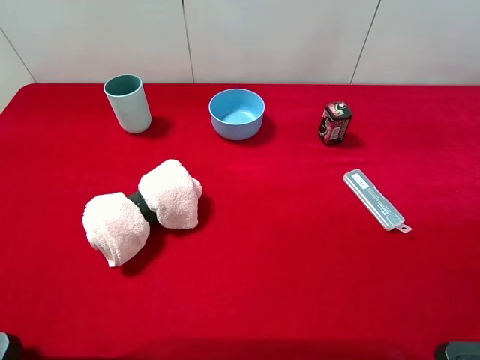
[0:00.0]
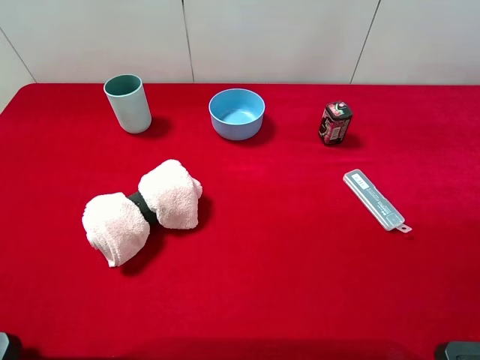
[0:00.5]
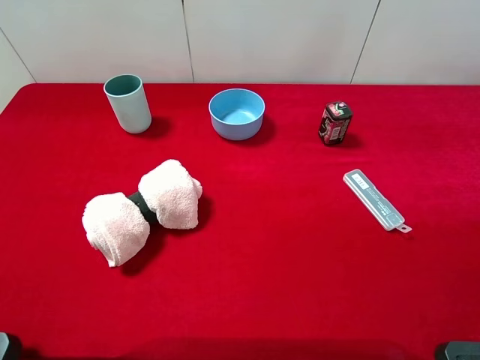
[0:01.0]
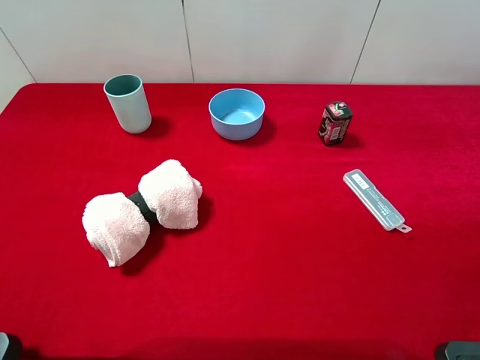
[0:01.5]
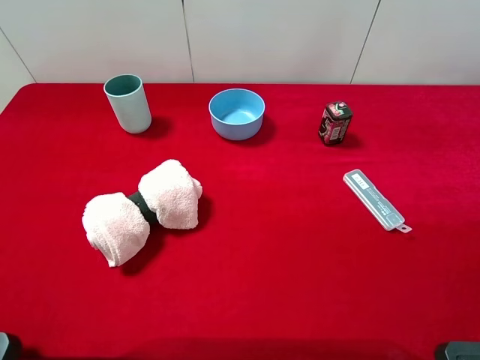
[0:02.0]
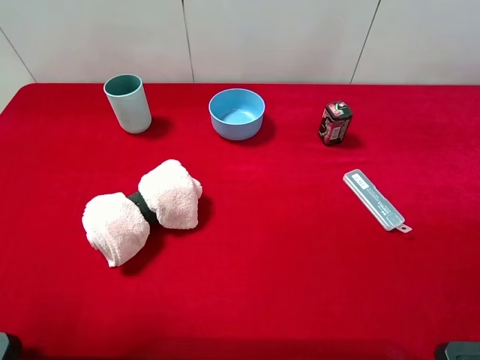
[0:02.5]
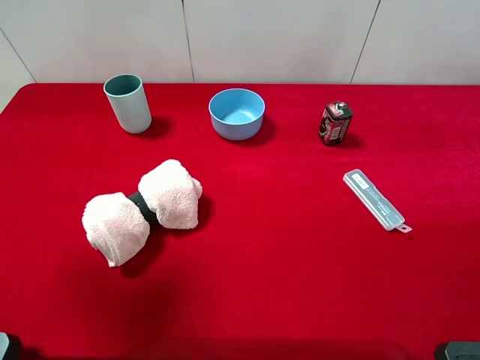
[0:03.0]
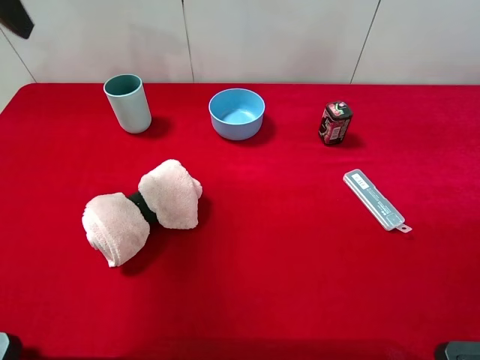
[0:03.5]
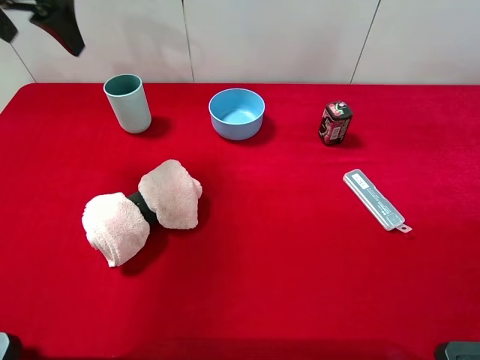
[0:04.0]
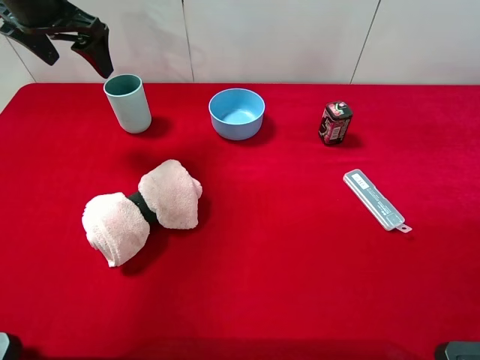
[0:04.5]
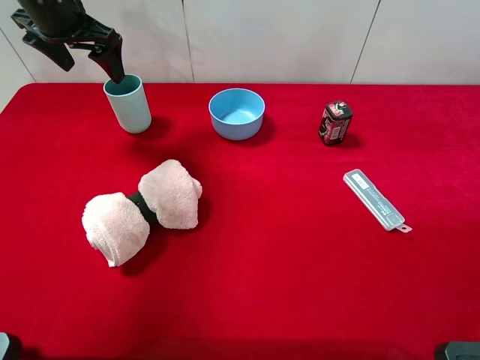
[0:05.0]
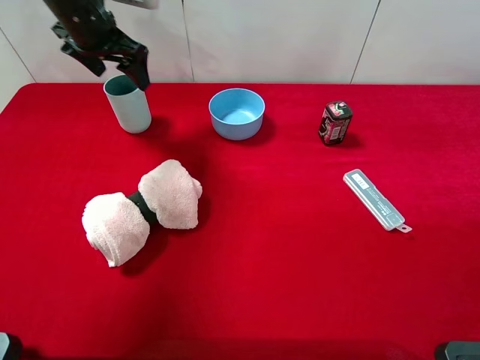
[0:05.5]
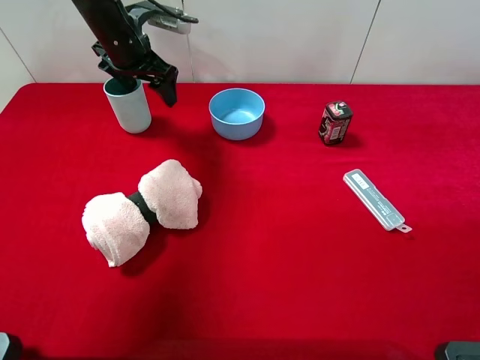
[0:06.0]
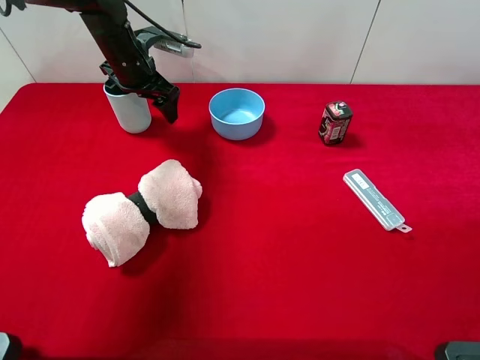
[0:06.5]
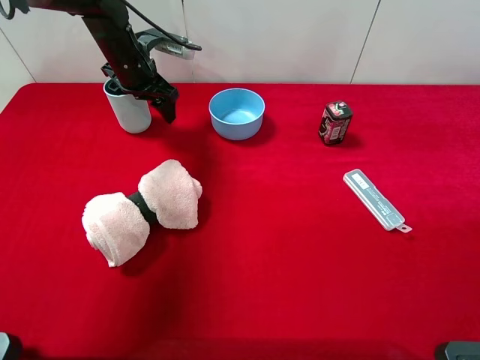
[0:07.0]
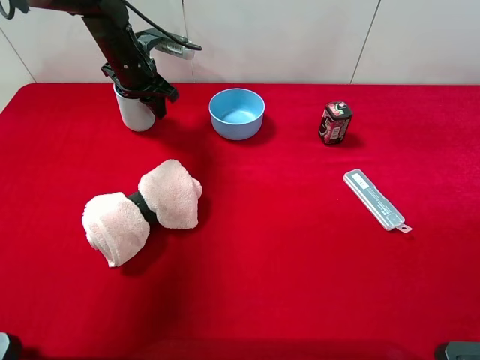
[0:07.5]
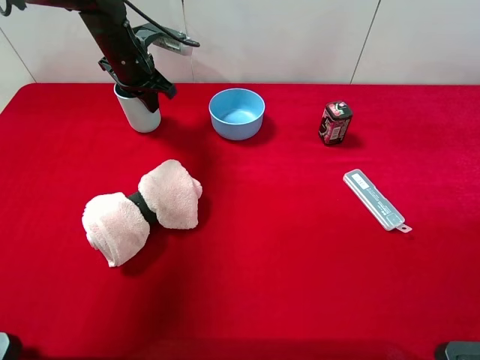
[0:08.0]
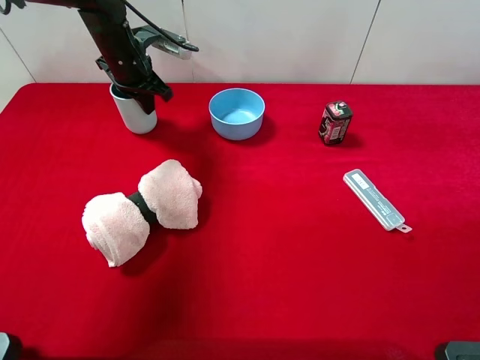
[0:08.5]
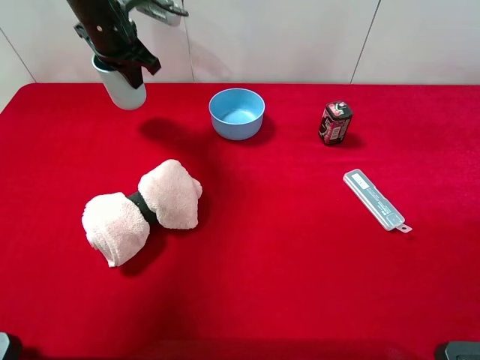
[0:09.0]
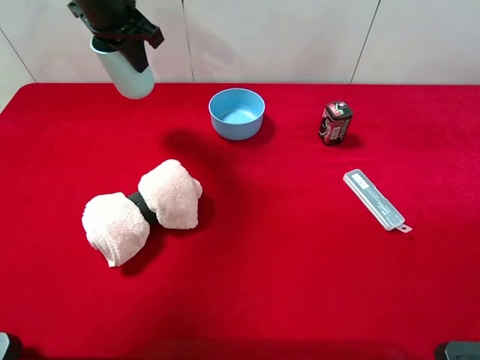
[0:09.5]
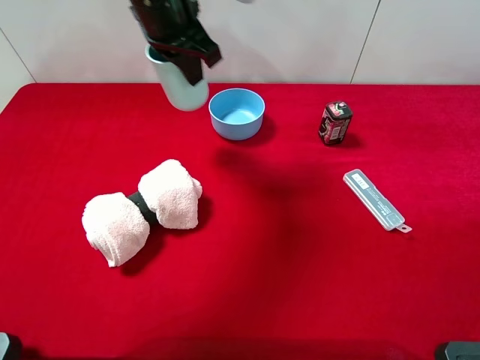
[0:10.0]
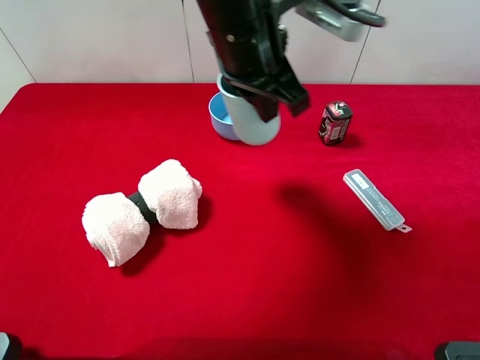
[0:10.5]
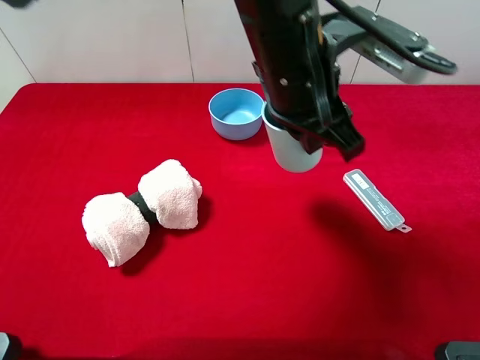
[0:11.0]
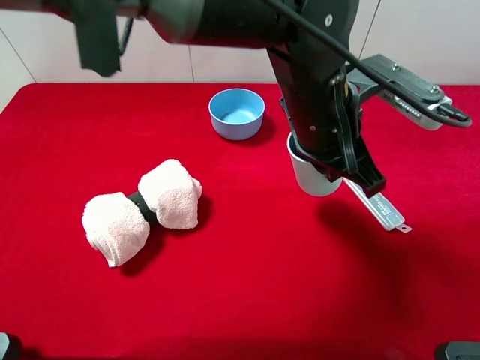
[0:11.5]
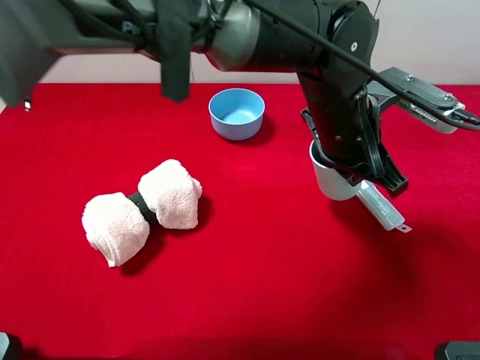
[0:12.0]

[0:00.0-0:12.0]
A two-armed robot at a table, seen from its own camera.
Task of the whole recording: the gripper move the object.
Step, 0:00.0 to 0:07.5: Grasp the blue cup with the left gripper.
0:02.0 to 0:04.0: The left gripper moves forward, approximately 35 cm.
0:04.0 to 0:06.0: The left gripper goes approximately 20 cm downward, forward and to the right.
0:06.0 to 0:08.0: The left gripper closes.
0:08.0 to 0:10.0: The left gripper moves upward, to the right and backward, roughly 20 cm.
0:10.0 to 0:12.0: The left gripper moves to the right, backward and downward, about 25 cm.

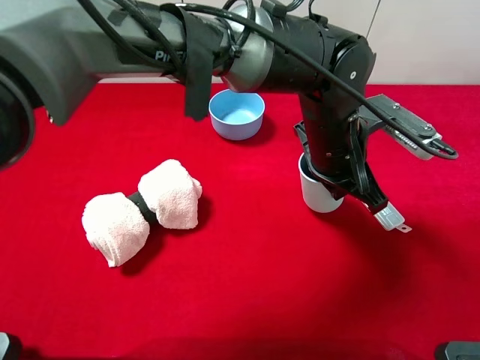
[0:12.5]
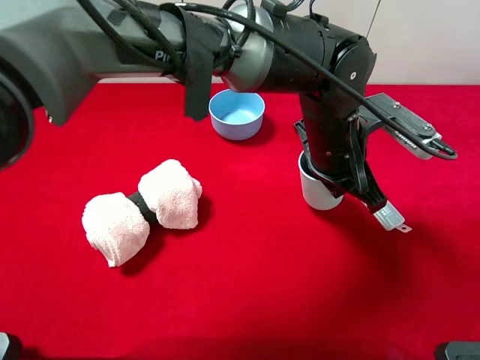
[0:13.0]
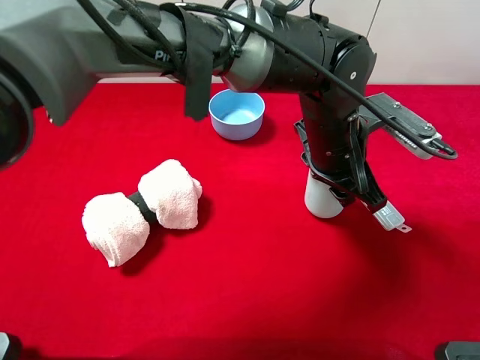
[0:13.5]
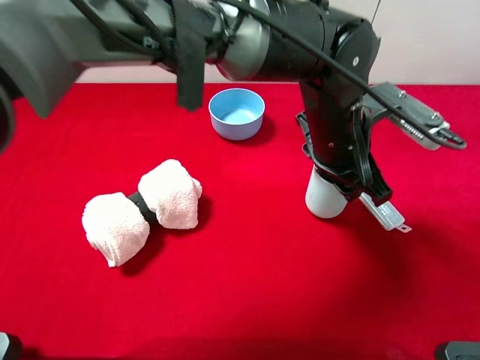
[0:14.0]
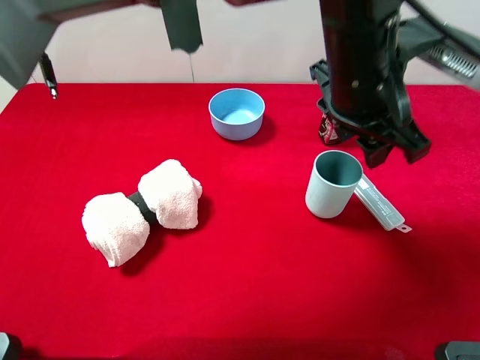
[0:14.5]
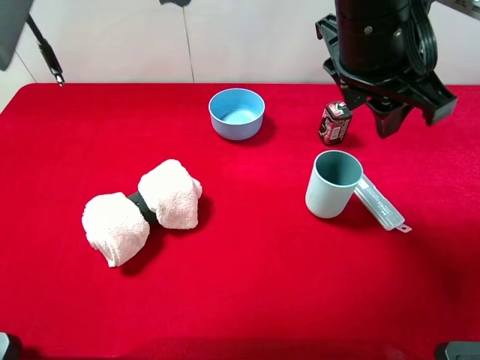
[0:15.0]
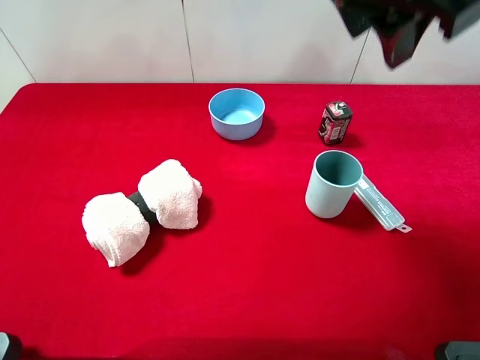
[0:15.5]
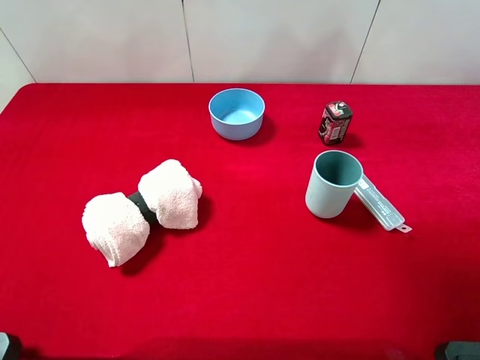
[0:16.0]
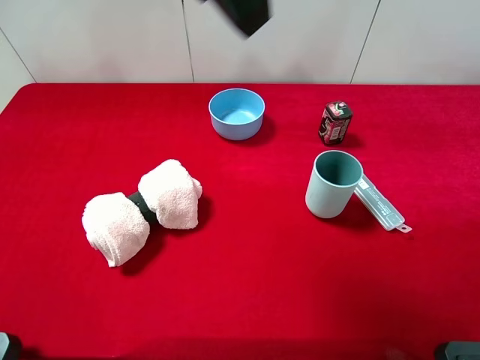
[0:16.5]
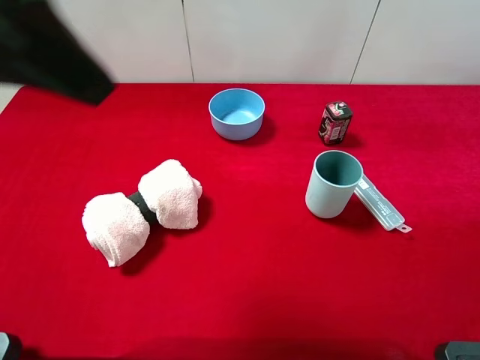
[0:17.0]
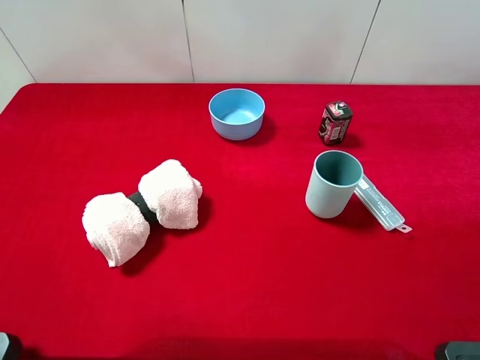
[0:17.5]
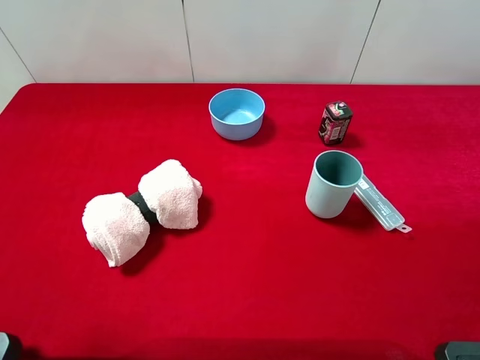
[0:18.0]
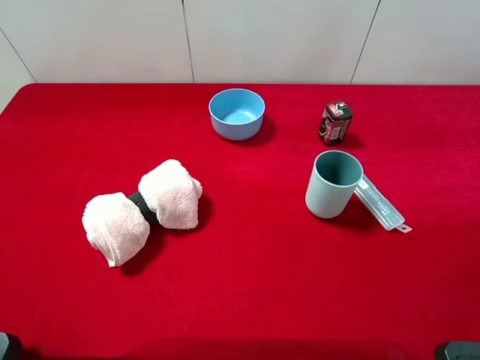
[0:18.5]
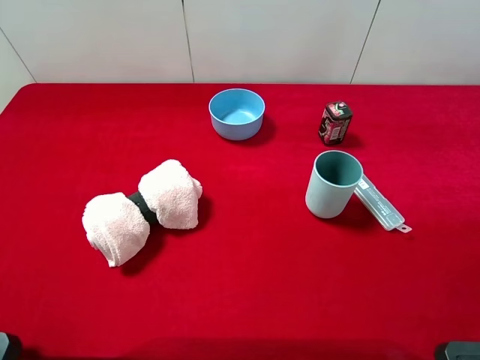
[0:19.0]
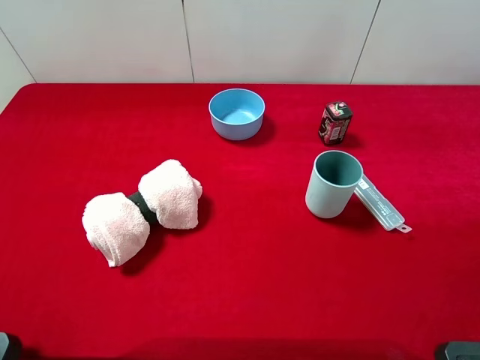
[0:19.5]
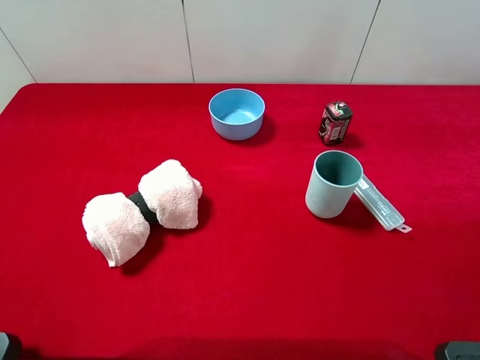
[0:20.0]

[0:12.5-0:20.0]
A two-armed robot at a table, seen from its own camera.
Task of the whole recording: the gripper move the object.
Step, 0:12.5 to 0:14.5: Place the blue cup on the table with the left gripper.
0:12.5 to 0:14.5: The left gripper moves upward, some 10 cm, and opens up.
0:14.5 to 0:16.5: The left gripper goes some 25 cm to the left, upward and backward.
0:16.5 to 0:18.0: The left gripper heads to the left, backward and downward, covering about 30 cm, and opens its fingers.
